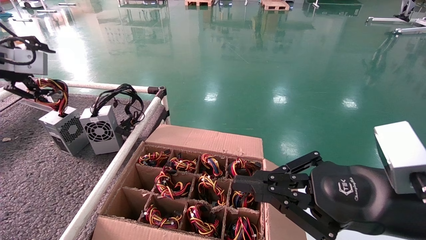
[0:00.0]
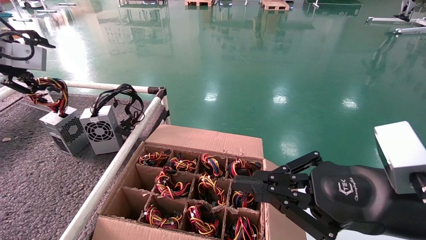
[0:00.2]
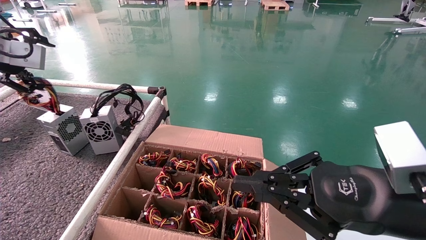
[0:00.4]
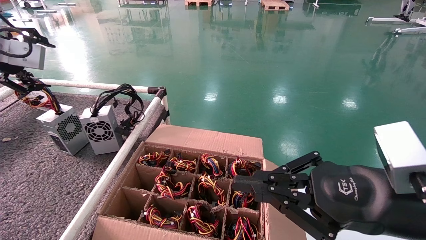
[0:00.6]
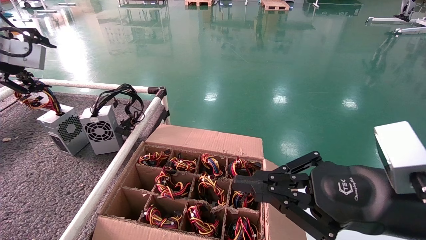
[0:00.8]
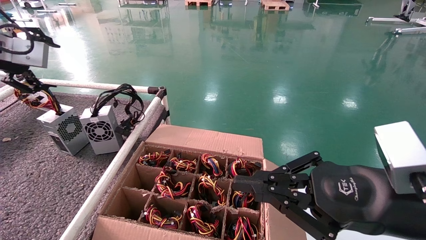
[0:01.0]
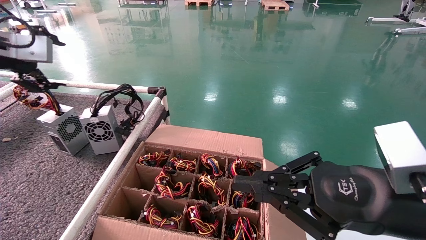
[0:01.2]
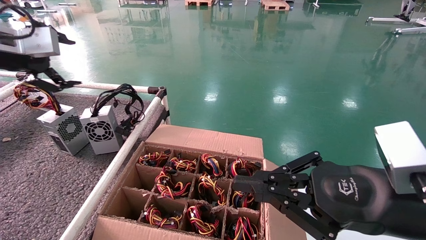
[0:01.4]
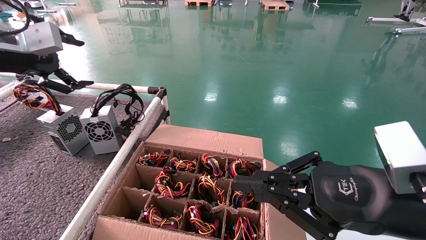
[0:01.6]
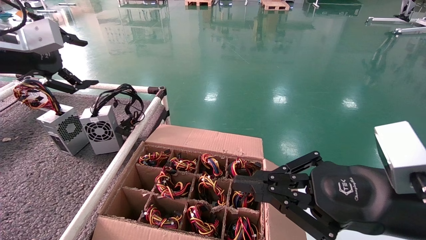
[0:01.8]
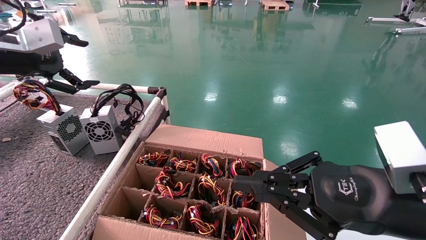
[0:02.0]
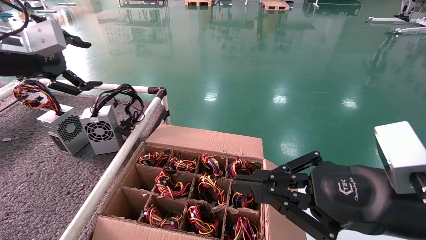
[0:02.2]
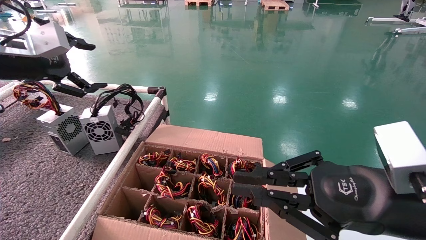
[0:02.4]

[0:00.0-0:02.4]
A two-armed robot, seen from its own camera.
0:00.0 to 0:01.2: The grippers stay close to where they were, moving slightly.
